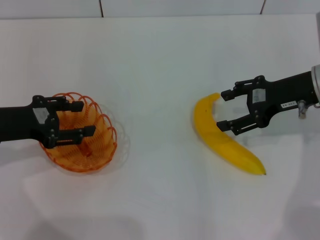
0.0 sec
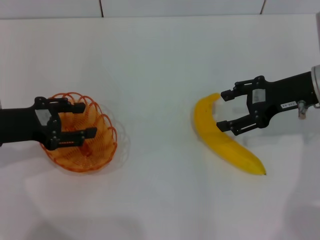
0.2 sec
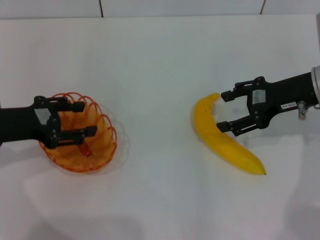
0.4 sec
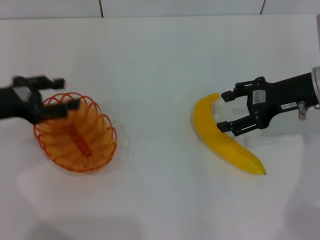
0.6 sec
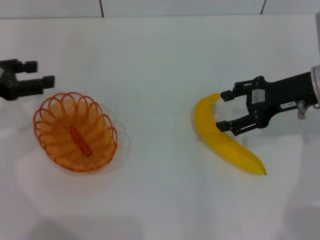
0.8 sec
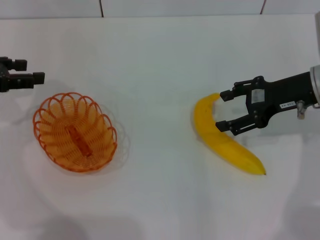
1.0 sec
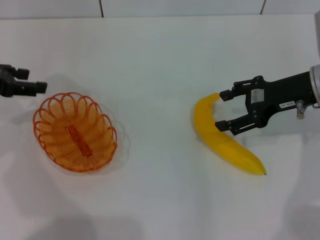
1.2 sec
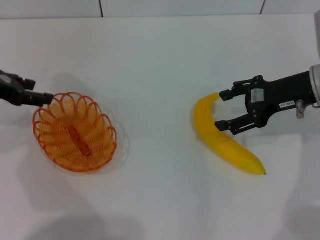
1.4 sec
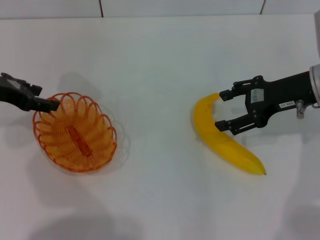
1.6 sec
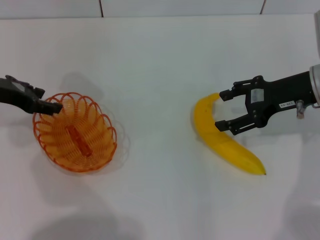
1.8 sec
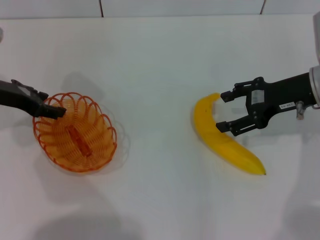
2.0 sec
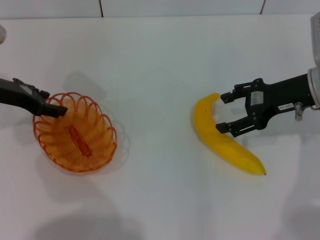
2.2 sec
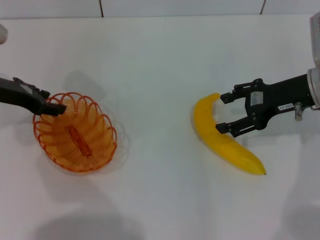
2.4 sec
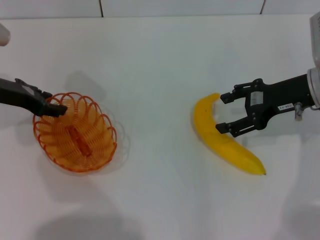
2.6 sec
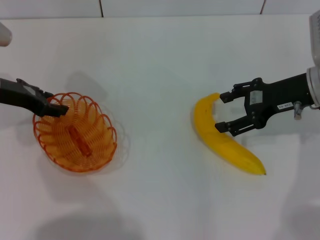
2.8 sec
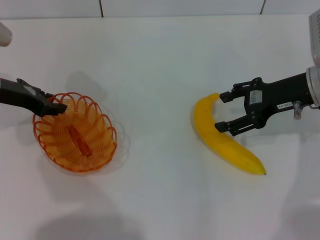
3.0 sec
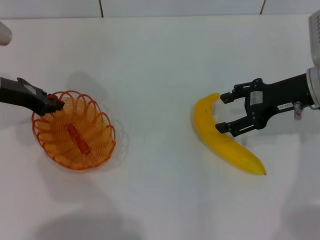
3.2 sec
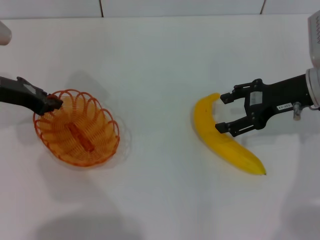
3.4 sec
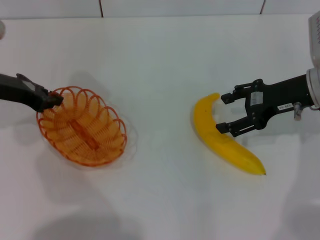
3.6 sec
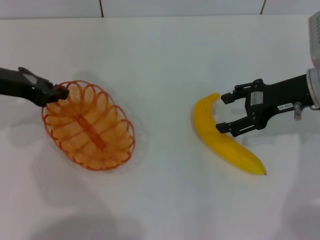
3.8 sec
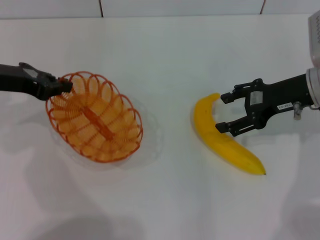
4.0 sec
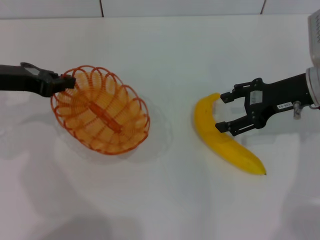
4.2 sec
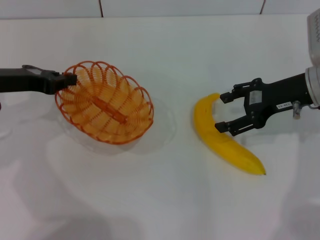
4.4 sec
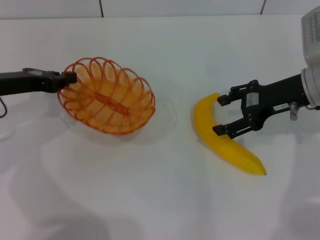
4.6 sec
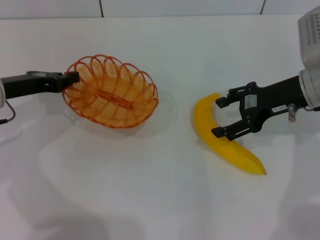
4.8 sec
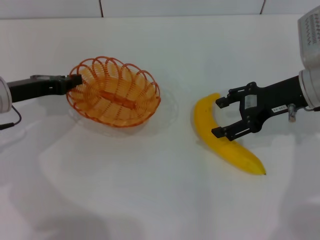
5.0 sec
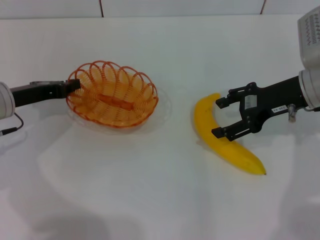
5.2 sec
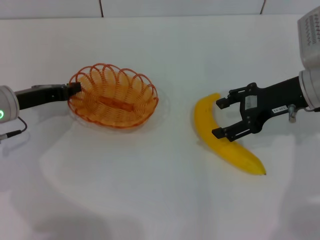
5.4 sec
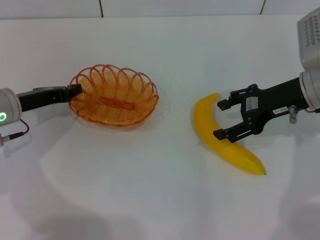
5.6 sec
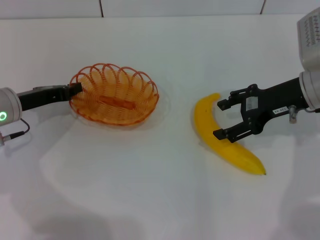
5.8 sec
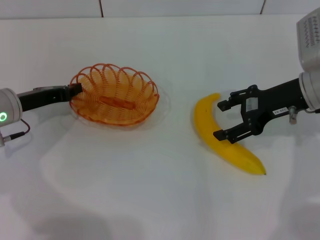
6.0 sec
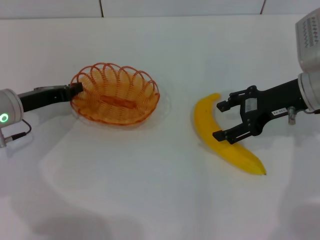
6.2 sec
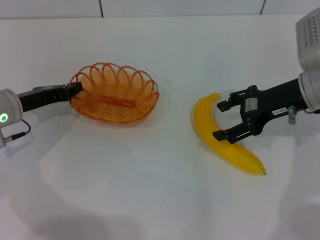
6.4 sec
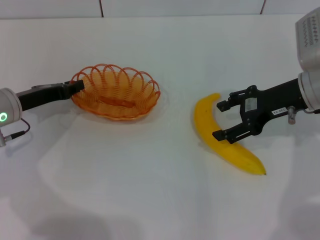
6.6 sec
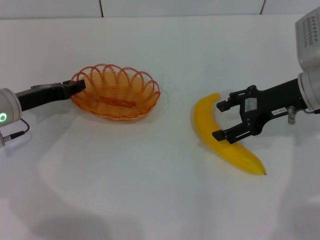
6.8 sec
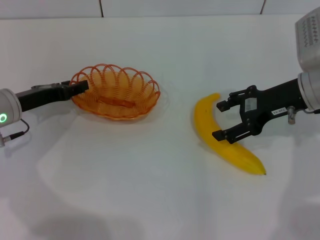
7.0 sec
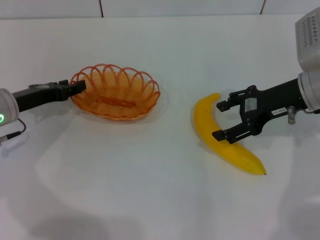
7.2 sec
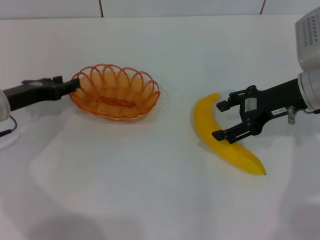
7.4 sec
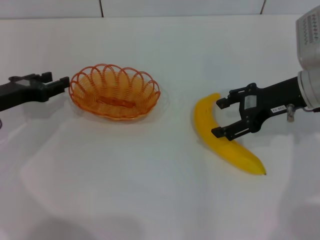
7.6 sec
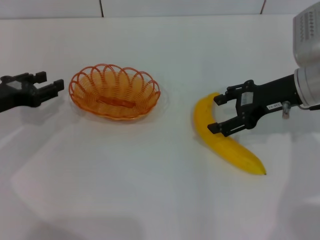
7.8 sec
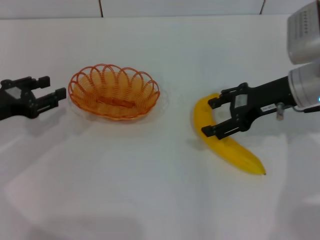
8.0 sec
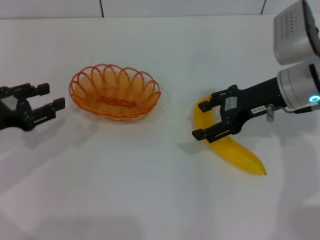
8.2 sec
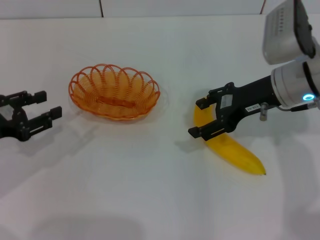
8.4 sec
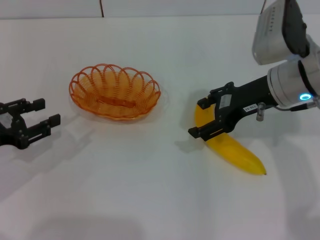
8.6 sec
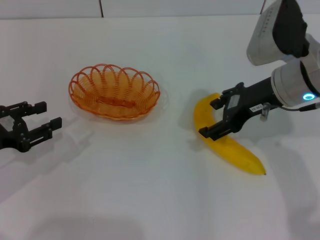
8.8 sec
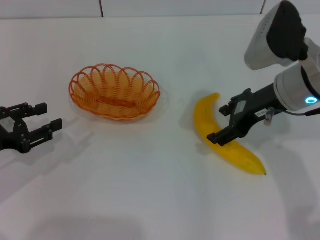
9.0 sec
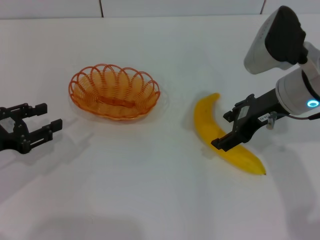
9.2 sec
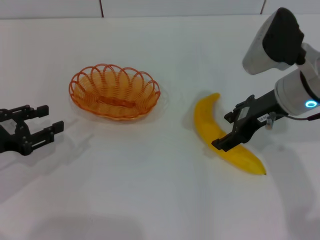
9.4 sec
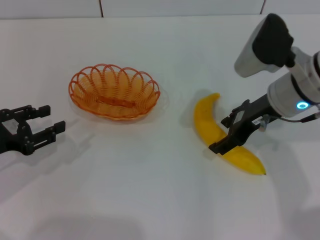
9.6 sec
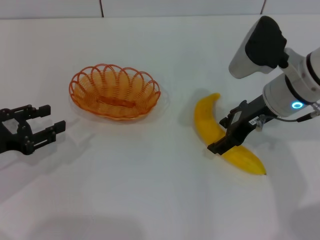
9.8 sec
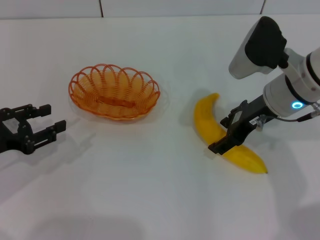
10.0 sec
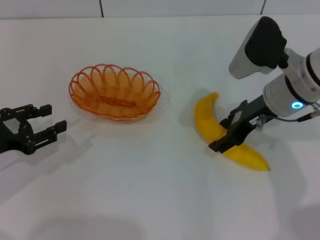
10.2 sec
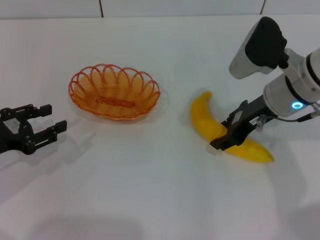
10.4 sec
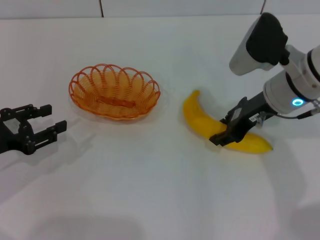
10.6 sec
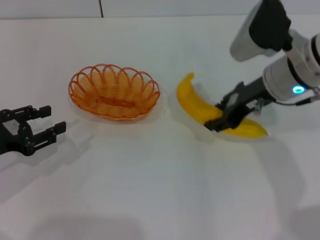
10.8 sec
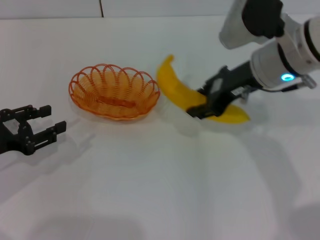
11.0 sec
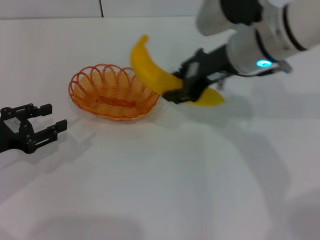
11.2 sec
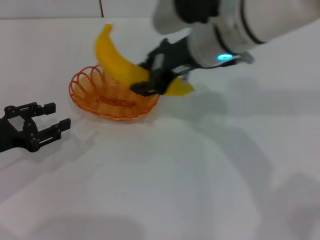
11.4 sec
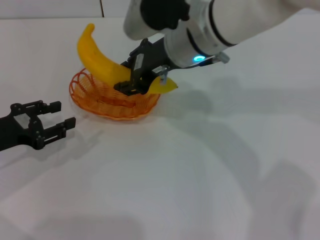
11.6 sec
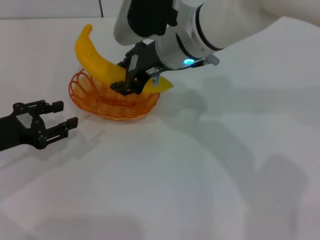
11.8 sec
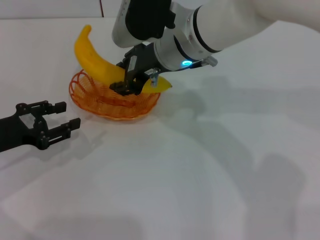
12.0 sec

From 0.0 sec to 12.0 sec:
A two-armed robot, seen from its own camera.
Step, from 0.0 sec to 3.8 sec: Pick up the basket with the left gripper.
Step, from 4.2 sec to 8.0 sec: Place the basket in the center of view with the left gripper.
Step, from 8.2 sec to 10.6 sec: Pick up the banana with the right gripper.
From 0.0 sec to 1.6 sec: The left gripper is displaced forward by approximately 5 cm.
From 1.6 sec to 3.0 sec: The grippers make only small movements.
From 3.0 sec to 4.4 sec: The left gripper closes.
From 4.4 sec to 6.0 sec: The left gripper heads downward, covering roughly 5 cm.
From 6.0 sec to 7.6 sec: The left gripper opens.
From 7.6 sec to 9.0 sec: The left gripper travels backward by roughly 5 cm. The right gripper moves to the left, some 5 cm.
From 9.0 sec to 10.4 sec: The right gripper closes up.
From 10.4 sec to 12.0 sec: The right gripper goes about 15 cm to the left, and closes its fingers.

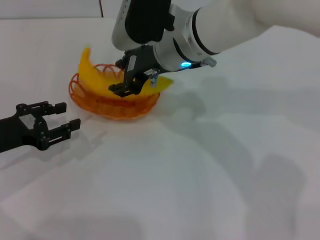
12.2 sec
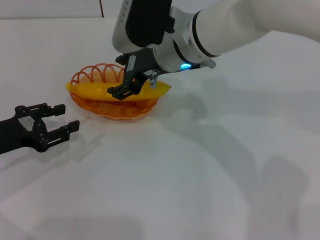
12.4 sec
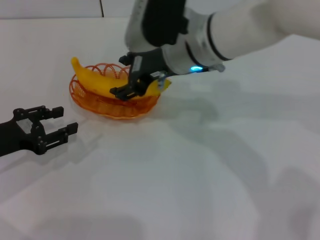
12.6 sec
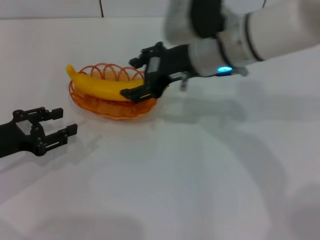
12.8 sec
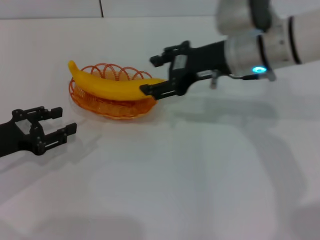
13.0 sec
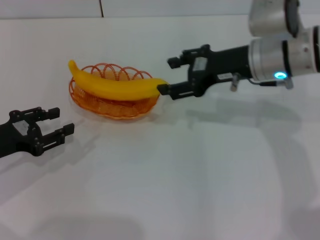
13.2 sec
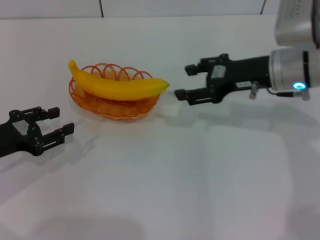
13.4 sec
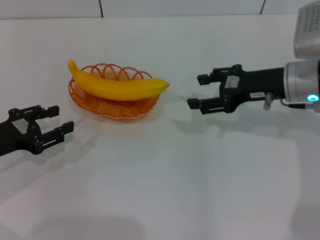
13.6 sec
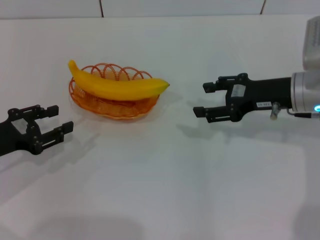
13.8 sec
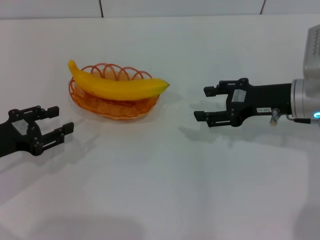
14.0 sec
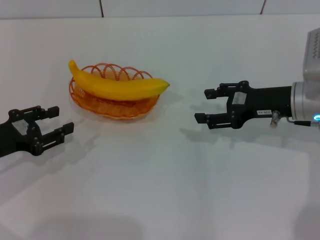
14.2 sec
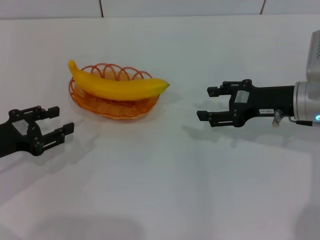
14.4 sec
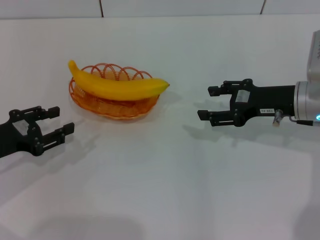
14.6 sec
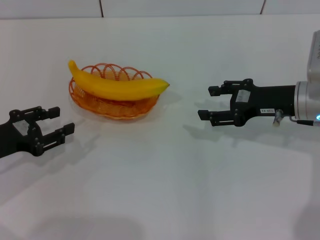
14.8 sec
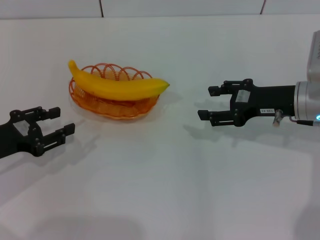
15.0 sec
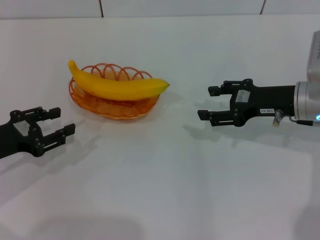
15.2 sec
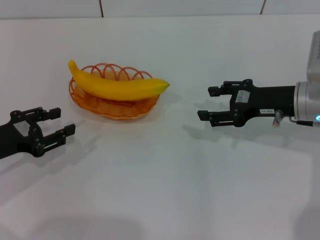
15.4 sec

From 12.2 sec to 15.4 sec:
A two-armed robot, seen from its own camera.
From 12.2 sec to 13.8 sec: The right gripper shifts about 20 cm to the right, and opens.
From 13.8 sec to 15.4 sec: The grippers stay close to where they were, moving slightly.

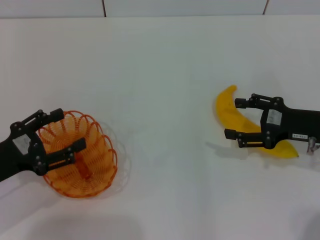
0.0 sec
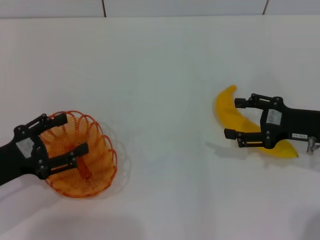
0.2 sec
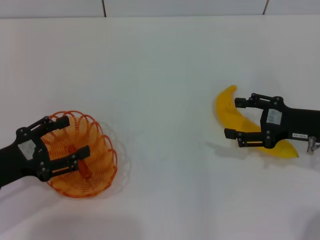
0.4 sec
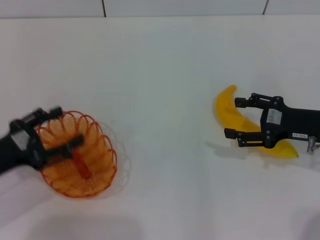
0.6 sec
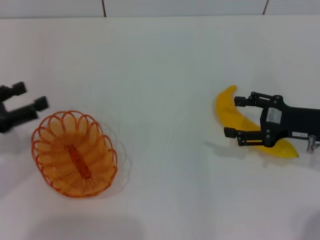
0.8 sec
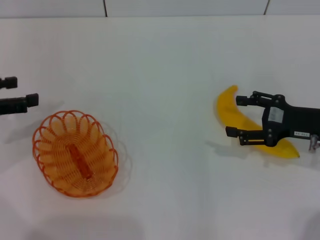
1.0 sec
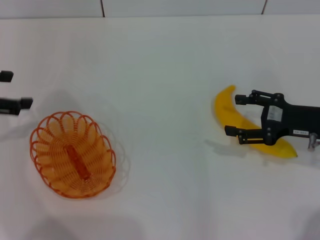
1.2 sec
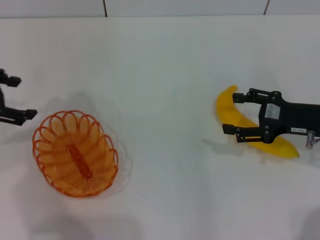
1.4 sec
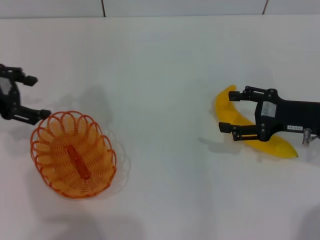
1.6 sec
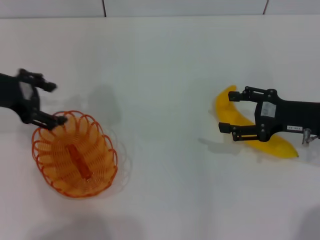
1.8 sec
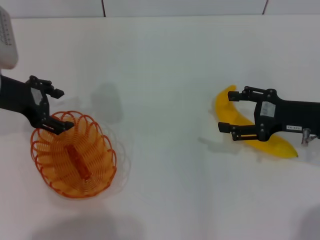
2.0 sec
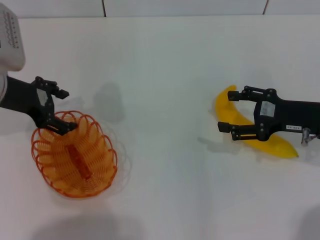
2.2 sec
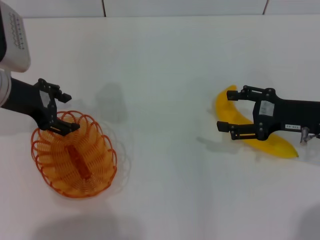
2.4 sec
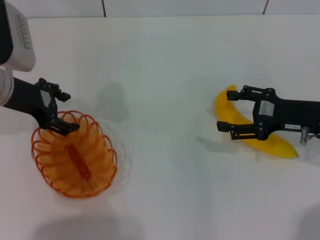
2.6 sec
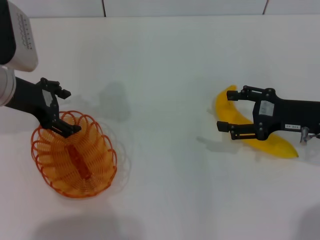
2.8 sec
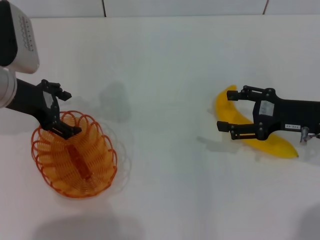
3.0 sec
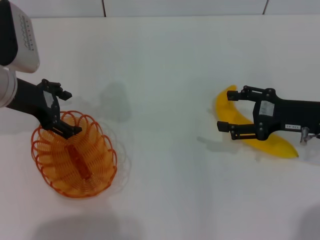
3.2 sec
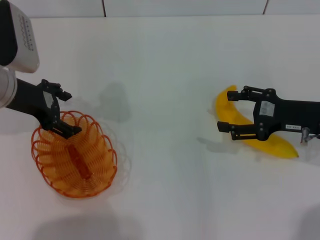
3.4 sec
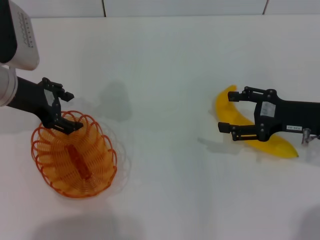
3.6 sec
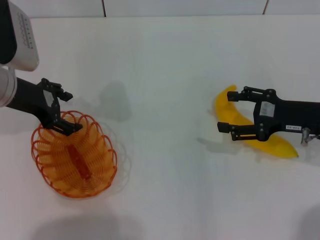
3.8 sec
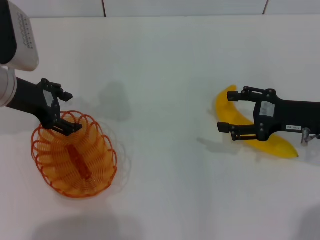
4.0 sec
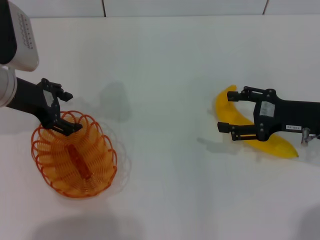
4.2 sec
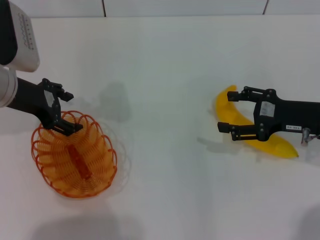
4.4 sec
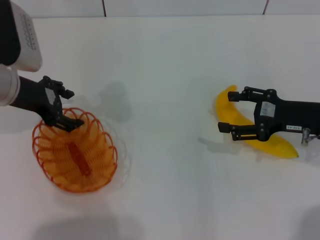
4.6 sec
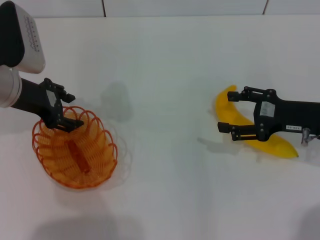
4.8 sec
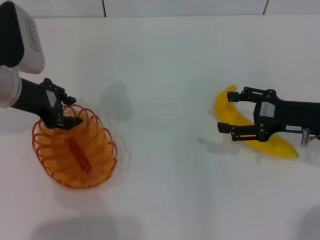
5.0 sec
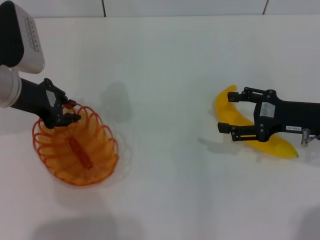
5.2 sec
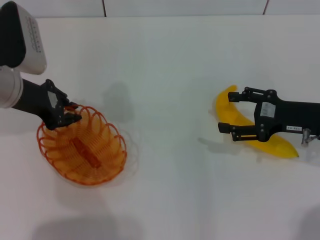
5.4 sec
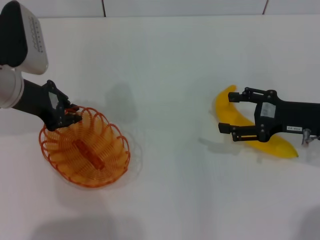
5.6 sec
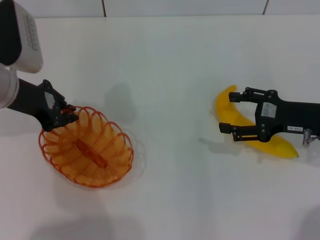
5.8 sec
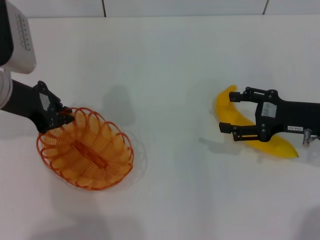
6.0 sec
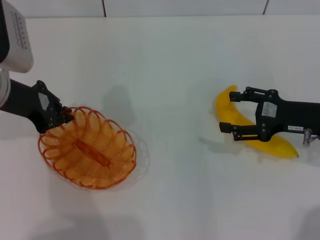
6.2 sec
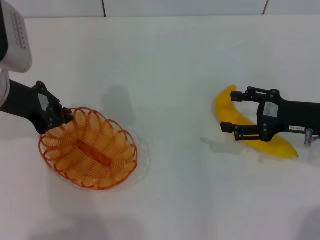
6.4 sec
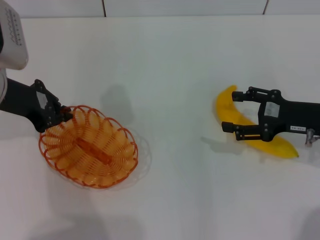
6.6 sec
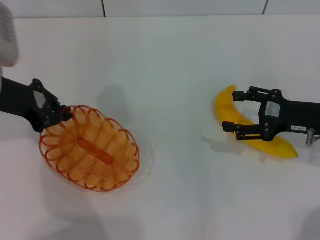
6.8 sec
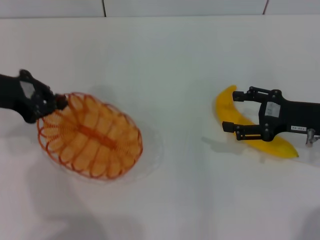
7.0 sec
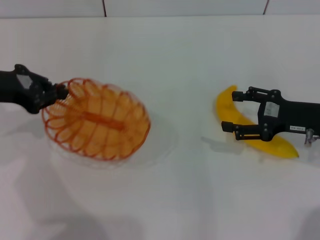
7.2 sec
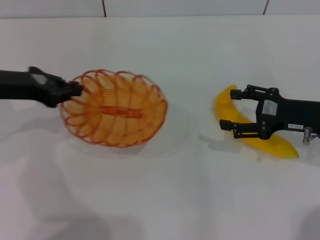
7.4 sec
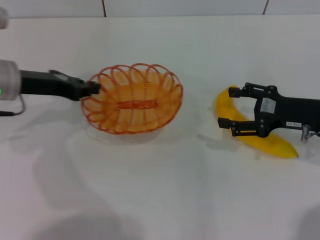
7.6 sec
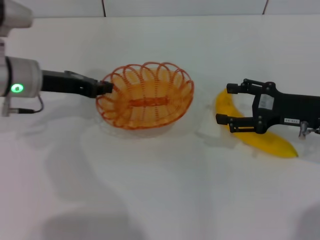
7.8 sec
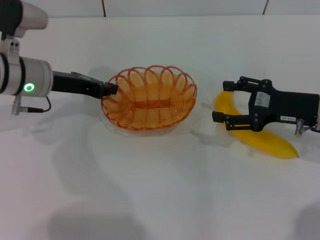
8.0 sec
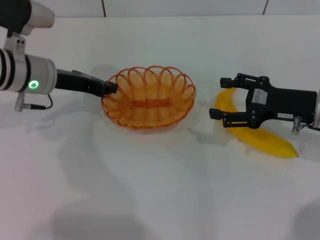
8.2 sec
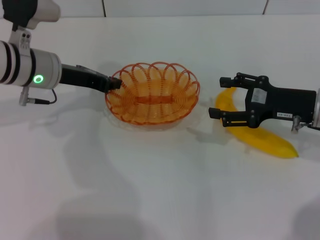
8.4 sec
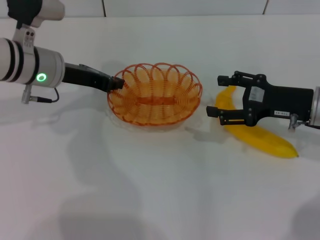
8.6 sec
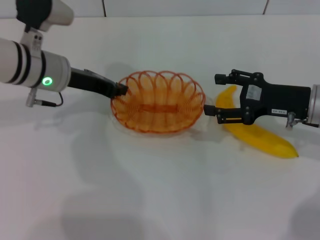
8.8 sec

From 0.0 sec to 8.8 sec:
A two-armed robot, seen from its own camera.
Step, from 0.0 sec to 6.8 sec: Pick up the basket with the left gripper.
From 0.0 sec to 1.4 sec: The left gripper is displaced upward and forward by approximately 15 cm.
From 1.4 sec to 3.0 sec: The left gripper goes approximately 10 cm to the right.
From 3.0 sec to 4.4 sec: The two grippers keep their place.
From 4.4 sec to 5.8 sec: The left gripper closes its fingers.
From 7.4 sec to 8.8 sec: The left gripper shifts some 10 cm to the right.
